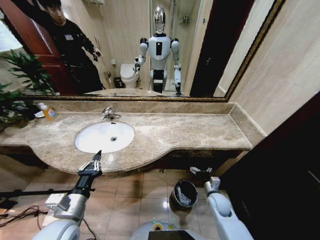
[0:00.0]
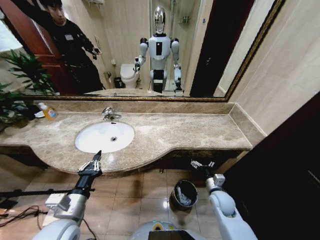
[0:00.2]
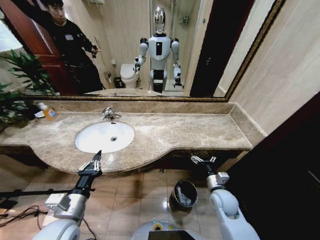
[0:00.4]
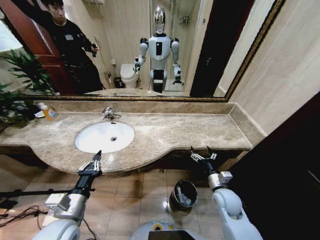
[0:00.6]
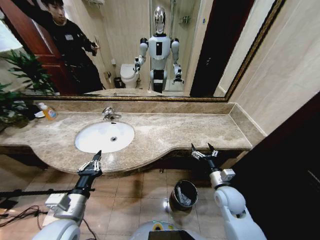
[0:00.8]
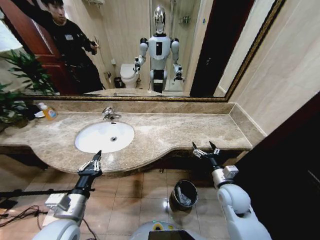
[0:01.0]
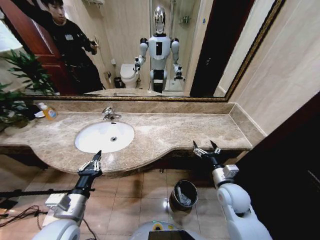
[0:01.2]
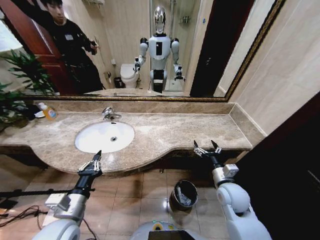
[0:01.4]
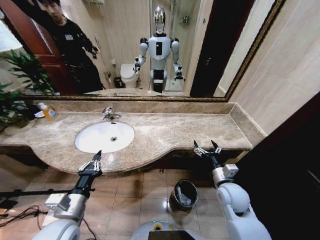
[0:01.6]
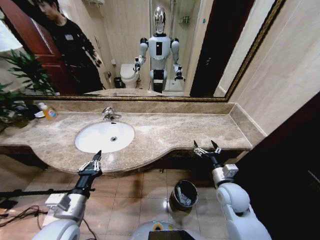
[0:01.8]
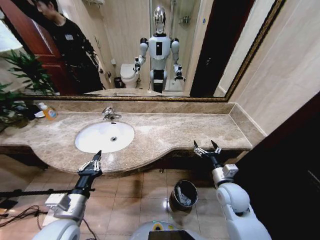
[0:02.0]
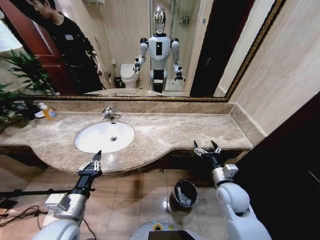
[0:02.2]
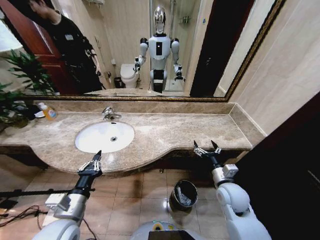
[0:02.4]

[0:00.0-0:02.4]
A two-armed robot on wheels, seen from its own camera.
Task of the whole recording: Pick up the trash from the sink and place it in the trash bin.
0:00.0 to 0:01.2: The right gripper is displaced upward by about 15 cm.
0:01.2 to 0:02.4: The two grippers keep their place.

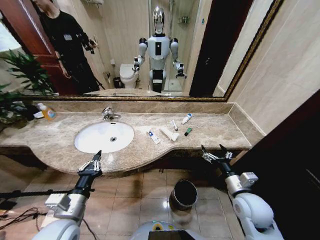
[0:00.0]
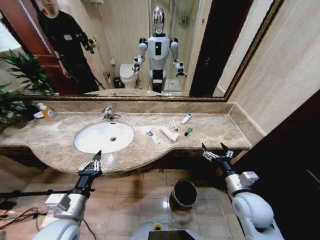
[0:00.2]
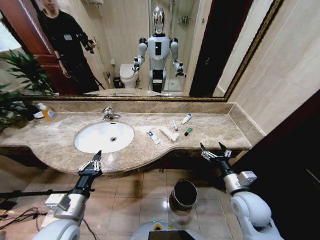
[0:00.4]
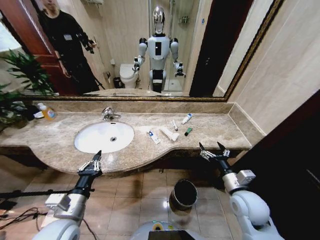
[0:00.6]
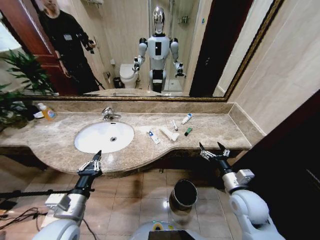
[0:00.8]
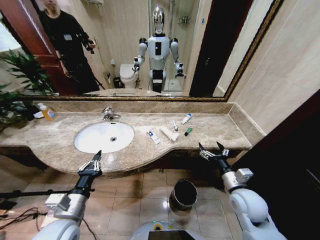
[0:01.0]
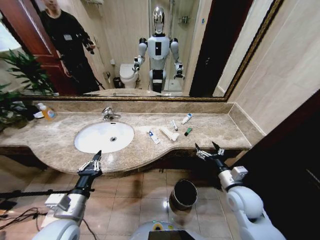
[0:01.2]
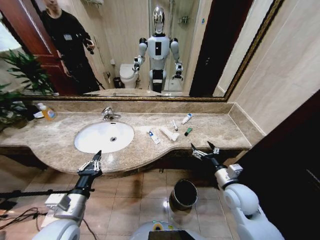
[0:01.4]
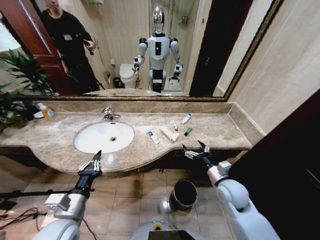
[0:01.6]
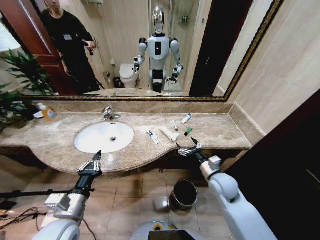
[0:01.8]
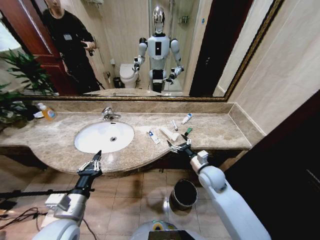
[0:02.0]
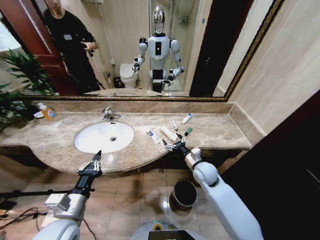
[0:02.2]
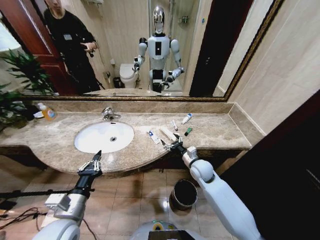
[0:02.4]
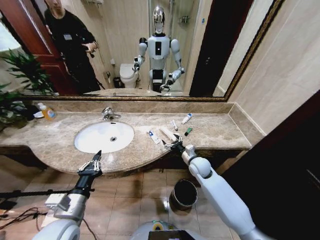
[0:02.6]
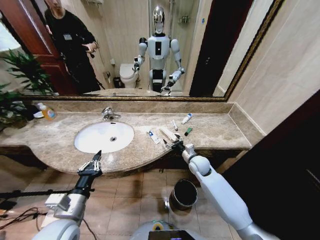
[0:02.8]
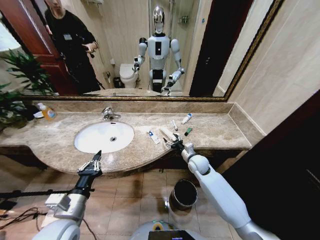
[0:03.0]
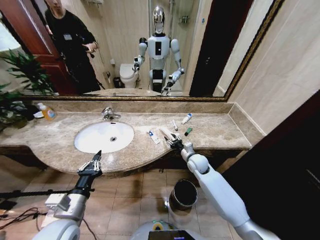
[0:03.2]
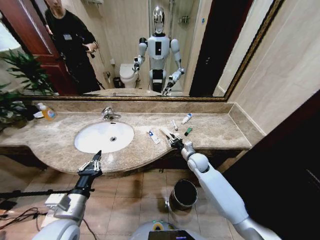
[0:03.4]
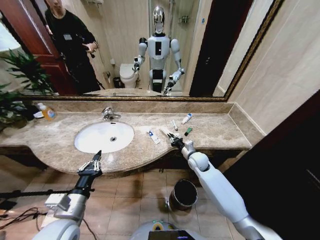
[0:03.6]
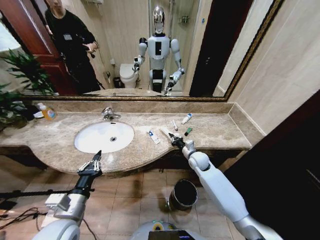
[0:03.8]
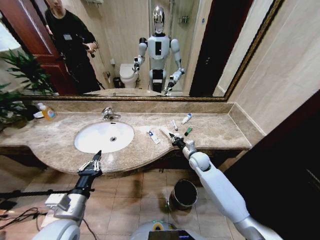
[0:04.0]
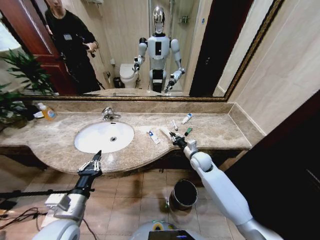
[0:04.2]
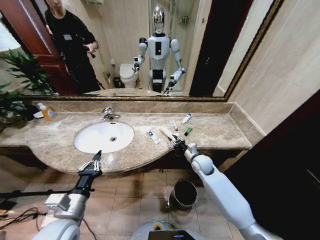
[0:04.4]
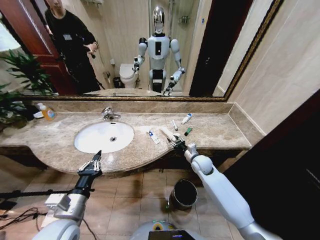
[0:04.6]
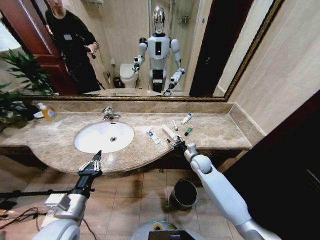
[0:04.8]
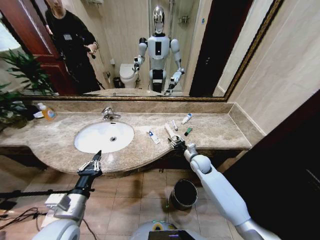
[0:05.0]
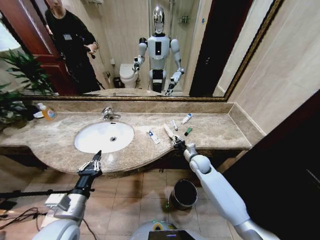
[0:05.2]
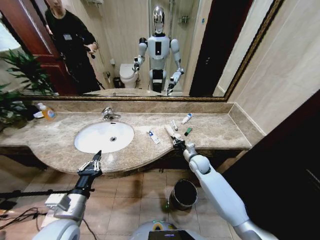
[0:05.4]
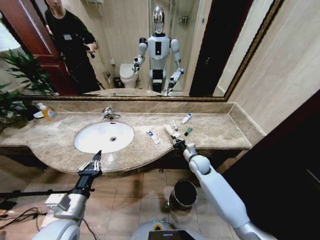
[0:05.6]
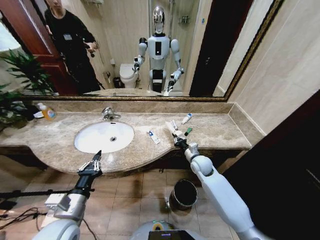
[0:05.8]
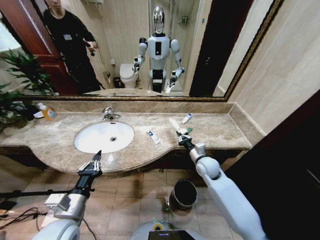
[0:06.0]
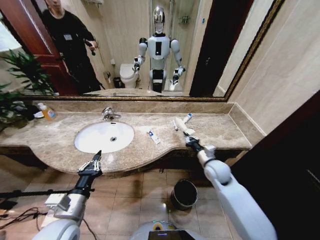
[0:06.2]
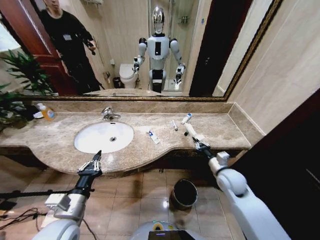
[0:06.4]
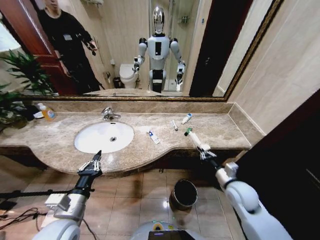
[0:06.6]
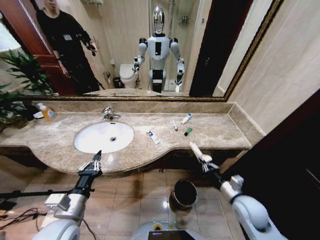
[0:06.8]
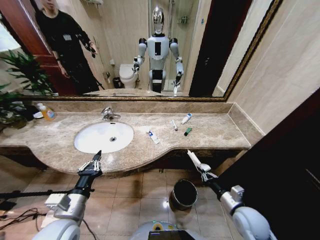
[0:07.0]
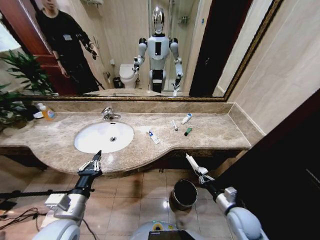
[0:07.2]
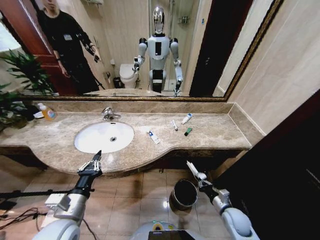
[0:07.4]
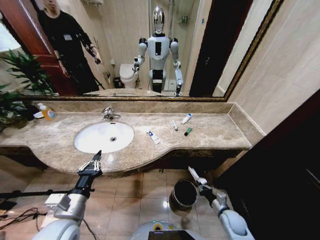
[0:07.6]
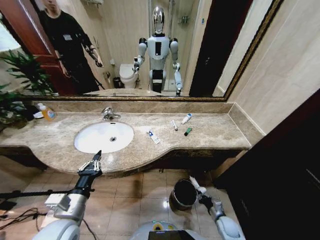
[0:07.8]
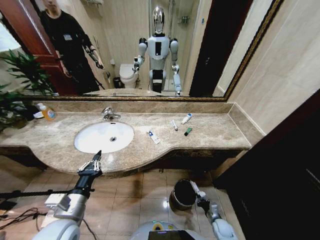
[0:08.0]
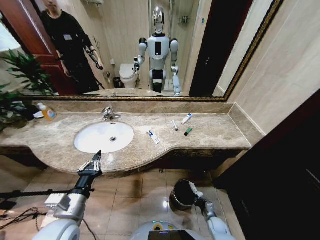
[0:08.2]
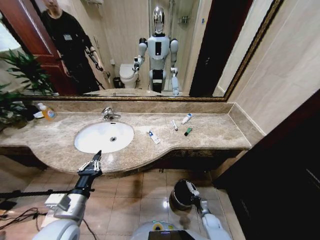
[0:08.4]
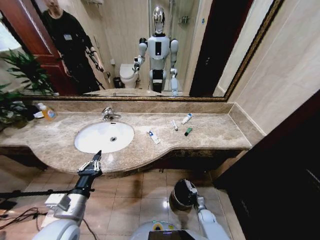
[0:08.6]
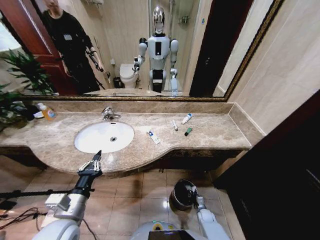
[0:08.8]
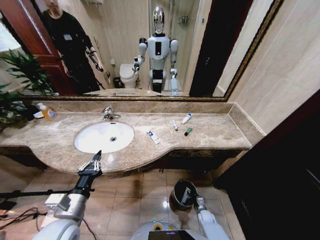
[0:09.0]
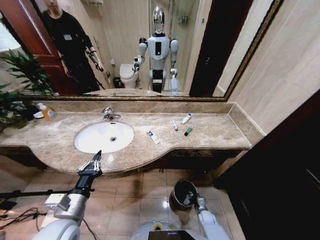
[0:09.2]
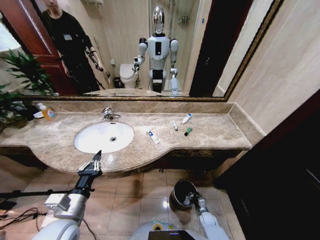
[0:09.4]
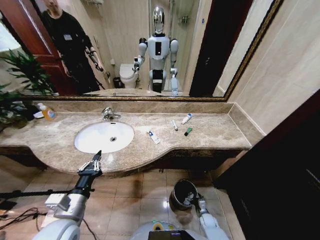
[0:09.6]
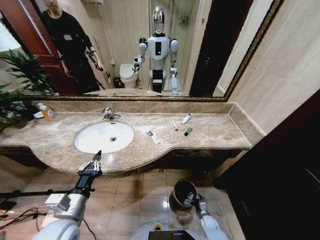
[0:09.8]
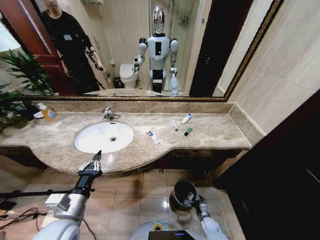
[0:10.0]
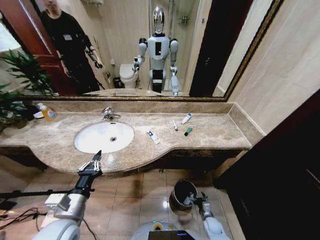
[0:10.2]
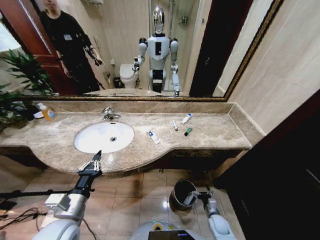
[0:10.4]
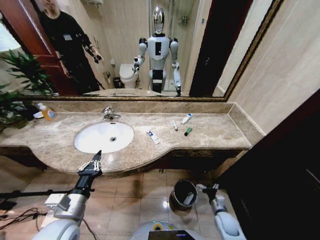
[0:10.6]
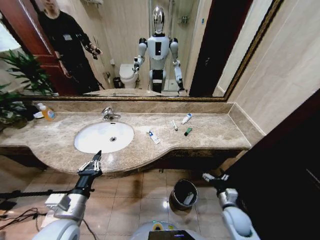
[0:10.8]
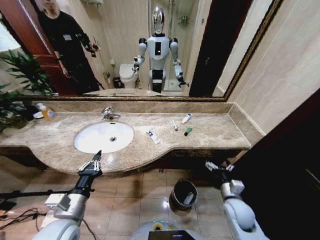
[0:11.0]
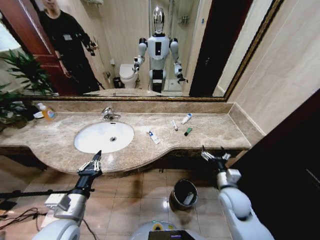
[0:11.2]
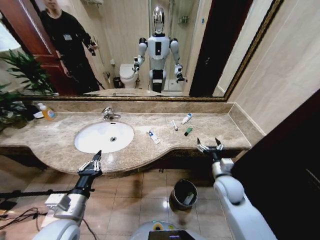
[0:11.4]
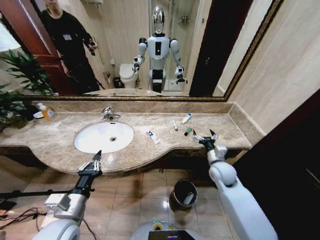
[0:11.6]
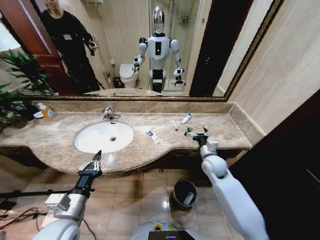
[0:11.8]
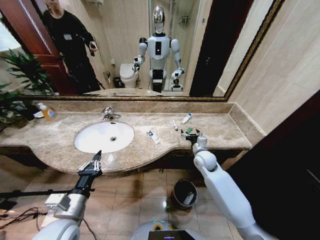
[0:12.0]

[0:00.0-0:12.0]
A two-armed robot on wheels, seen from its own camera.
Task of the whole recording: Pick up the trash from the sink and place it in the trash bin.
0:01.6 to 0:03.0: The right gripper heads forward and to the left, covering some 15 cm.
0:03.0 to 0:04.4: The right gripper closes up.
0:04.4 to 0:06.0: The right gripper opens and closes again.
0:06.0 to 0:07.6: The right gripper shifts about 30 cm downward, backward and to the right.
0:07.6 to 0:09.0: The right gripper goes about 15 cm downward.
0:09.0 to 0:10.4: The right gripper moves upward, about 10 cm, and opens up.
0:10.4 to 0:12.0: The right gripper heads upward and forward, covering roughly 35 cm.

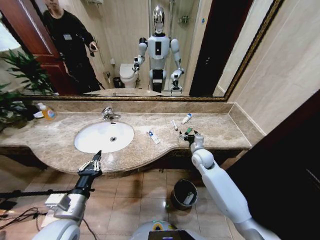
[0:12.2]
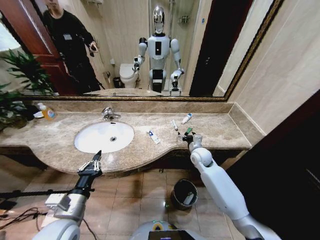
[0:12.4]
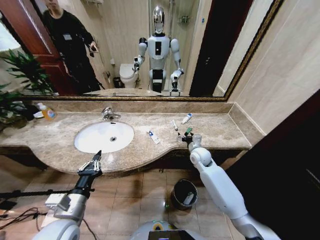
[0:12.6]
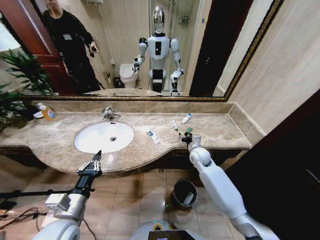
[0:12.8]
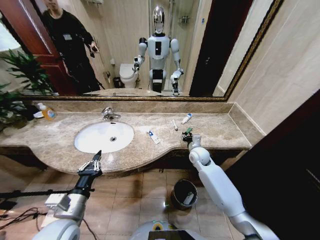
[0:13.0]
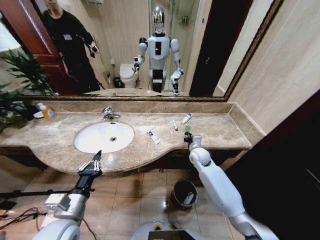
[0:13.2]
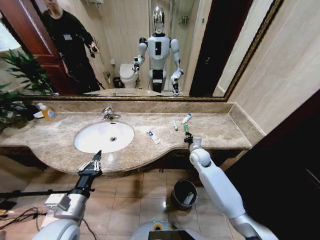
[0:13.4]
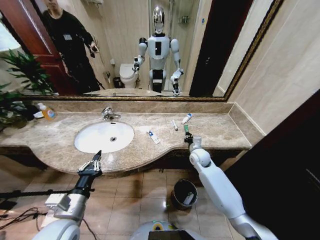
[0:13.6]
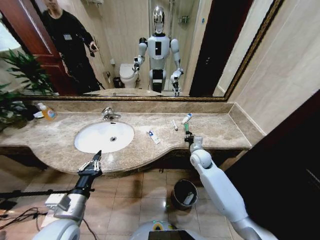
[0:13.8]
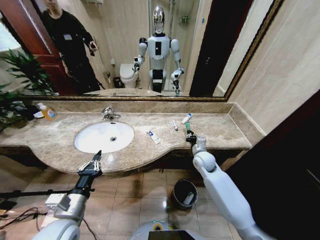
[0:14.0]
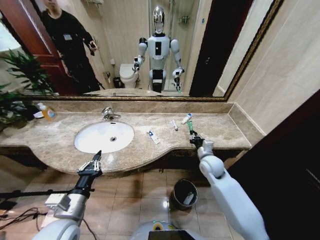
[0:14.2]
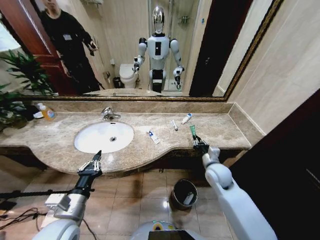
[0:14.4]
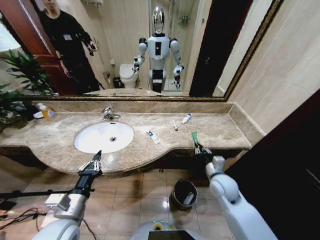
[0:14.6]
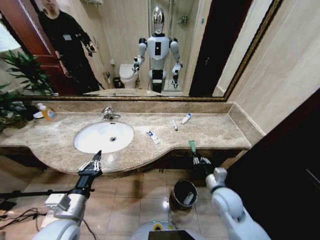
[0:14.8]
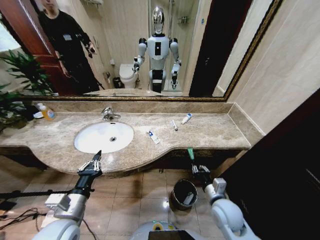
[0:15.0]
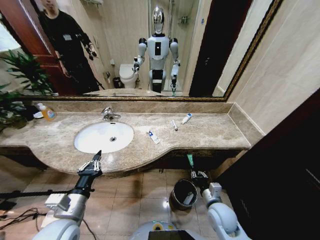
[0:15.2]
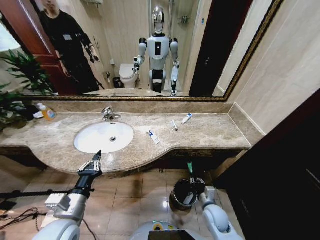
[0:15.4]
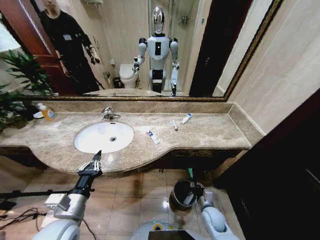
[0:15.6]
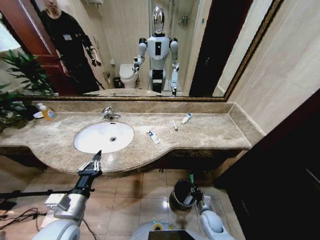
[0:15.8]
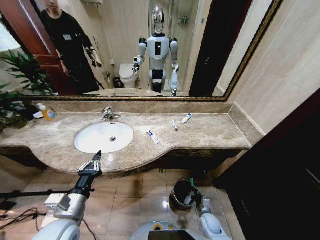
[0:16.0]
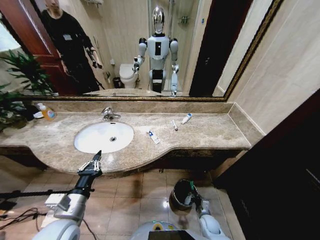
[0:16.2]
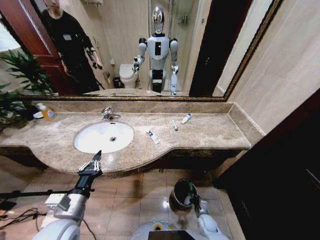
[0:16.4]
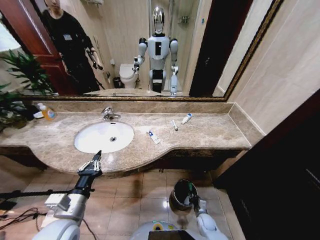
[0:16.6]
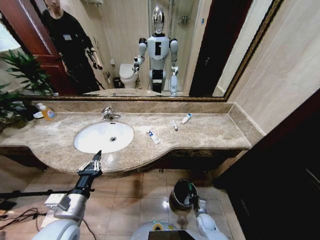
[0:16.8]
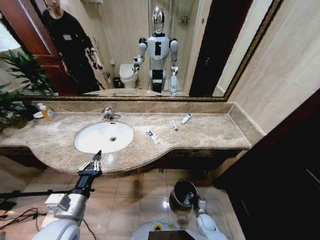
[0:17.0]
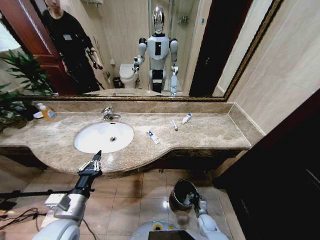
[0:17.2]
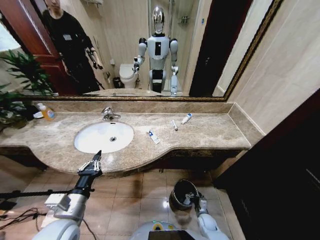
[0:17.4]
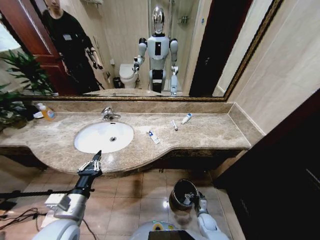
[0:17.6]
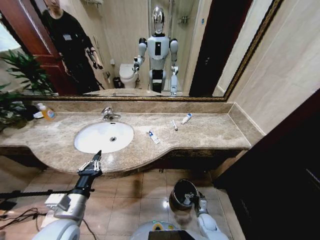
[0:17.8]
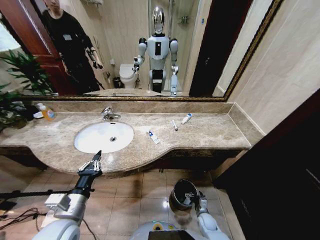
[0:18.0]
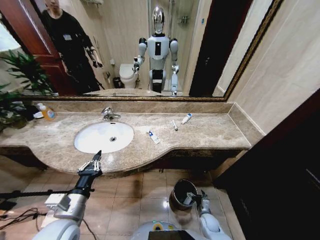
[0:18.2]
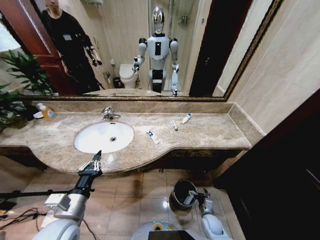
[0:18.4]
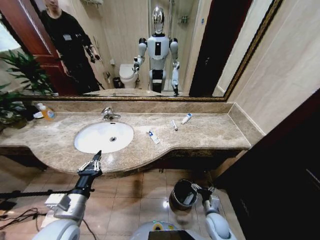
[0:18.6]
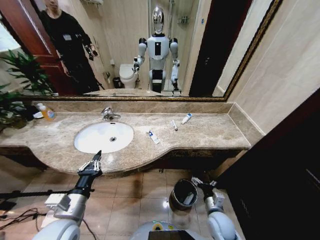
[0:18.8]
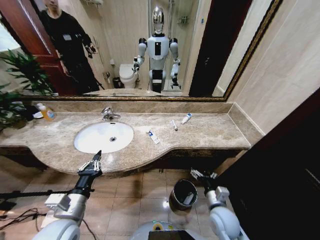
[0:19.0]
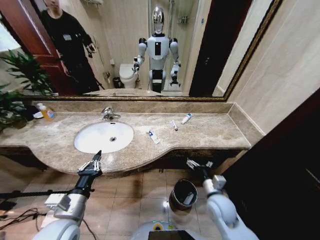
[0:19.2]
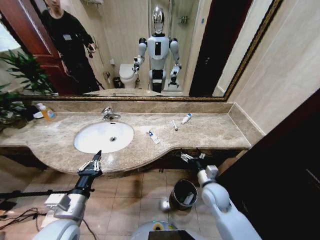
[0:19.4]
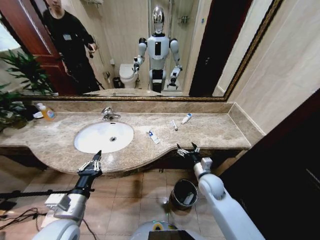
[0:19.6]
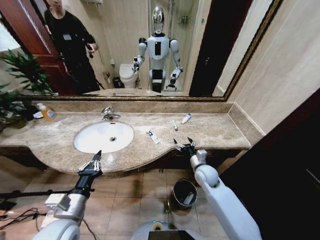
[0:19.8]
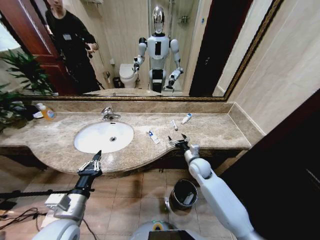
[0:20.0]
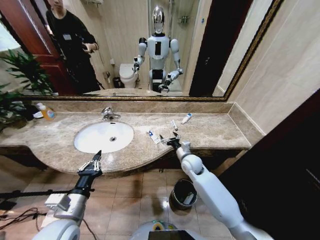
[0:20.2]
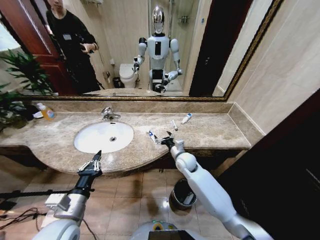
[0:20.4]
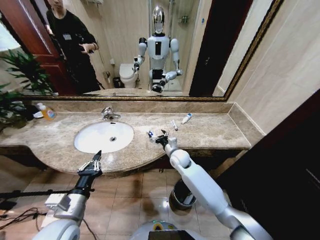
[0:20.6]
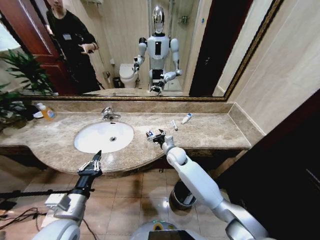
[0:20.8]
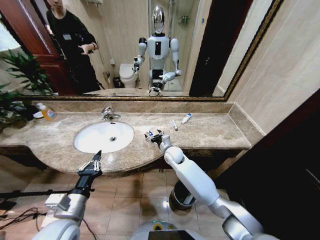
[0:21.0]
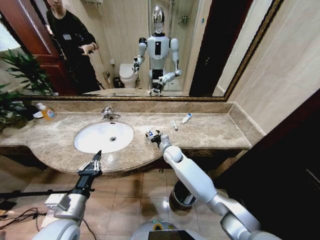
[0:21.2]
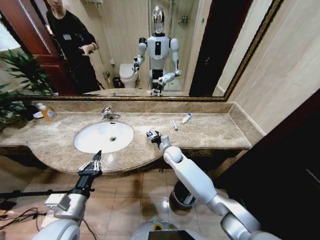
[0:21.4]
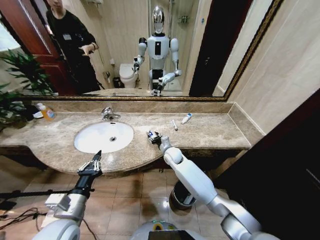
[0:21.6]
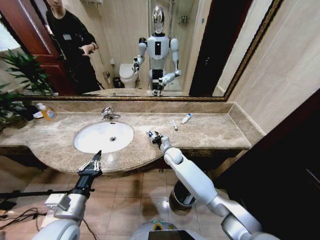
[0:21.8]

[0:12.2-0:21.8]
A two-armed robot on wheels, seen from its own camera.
Task of the whole recording: Pick up the trash from the sink and place it in the trash bin.
0:12.2 to 0:13.8: The right gripper closes.
0:13.8 to 0:15.4: The right gripper is displaced backward and downward by some 25 cm.
0:15.4 to 0:17.0: The right gripper shifts some 20 cm downward.
0:17.0 to 0:18.6: The right gripper travels upward by some 10 cm, and opens its fingers.
0:18.6 to 0:20.2: The right gripper goes some 30 cm forward, upward and to the left.
0:20.2 to 0:21.8: The right gripper shifts about 10 cm to the left and forward, and closes.
